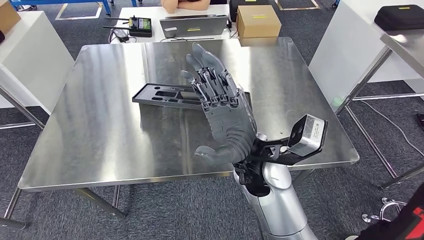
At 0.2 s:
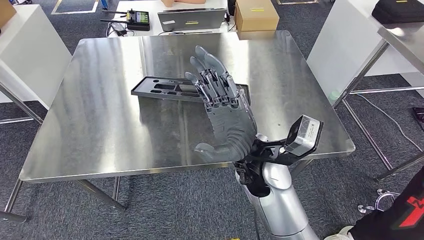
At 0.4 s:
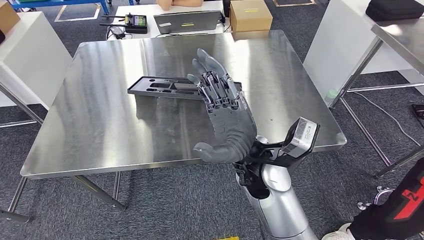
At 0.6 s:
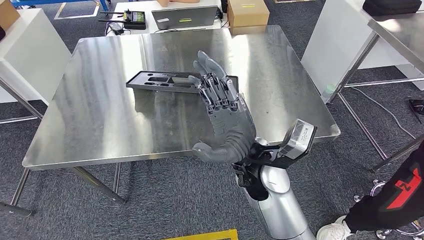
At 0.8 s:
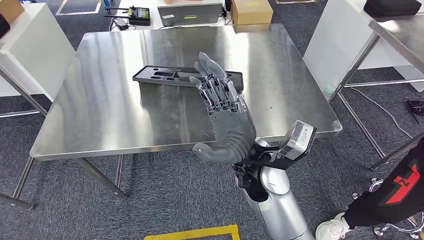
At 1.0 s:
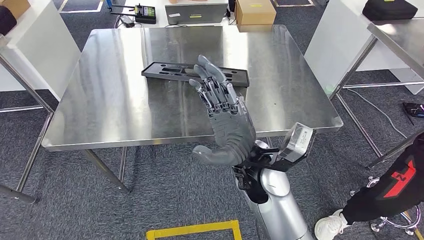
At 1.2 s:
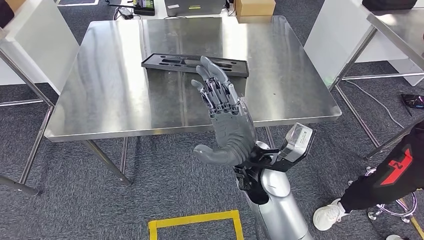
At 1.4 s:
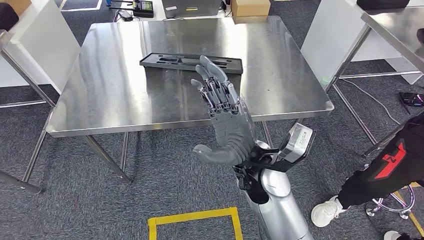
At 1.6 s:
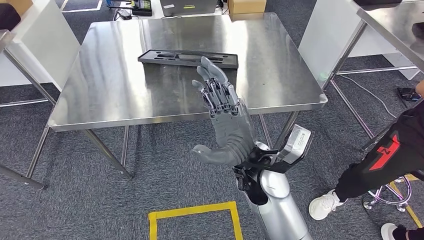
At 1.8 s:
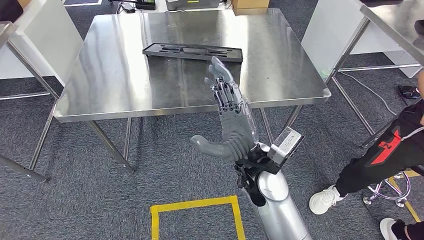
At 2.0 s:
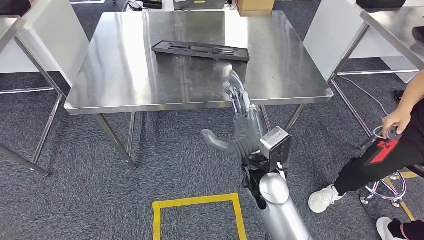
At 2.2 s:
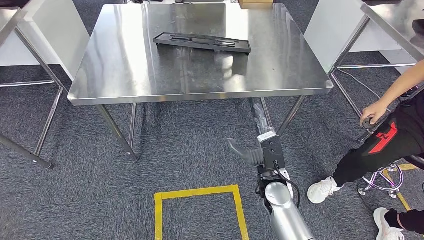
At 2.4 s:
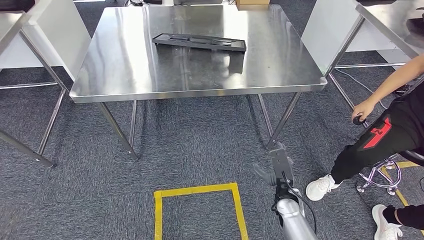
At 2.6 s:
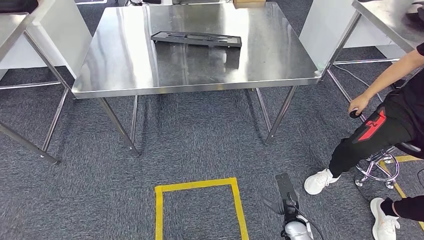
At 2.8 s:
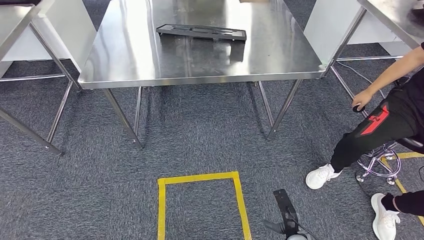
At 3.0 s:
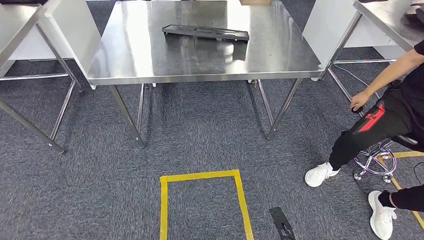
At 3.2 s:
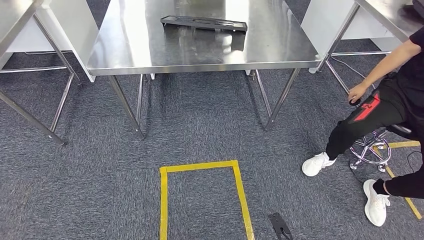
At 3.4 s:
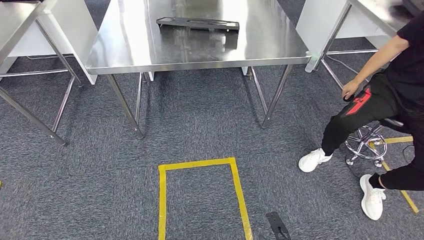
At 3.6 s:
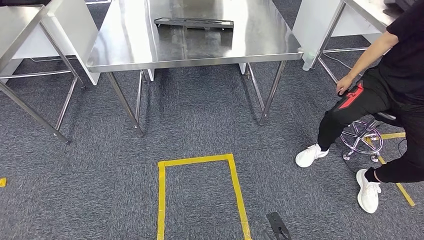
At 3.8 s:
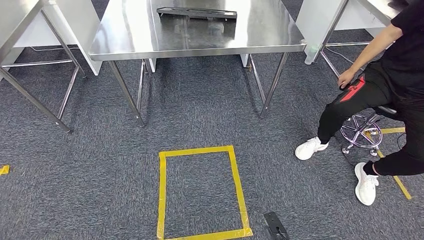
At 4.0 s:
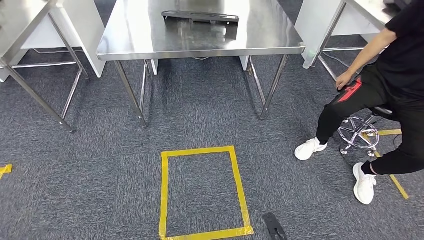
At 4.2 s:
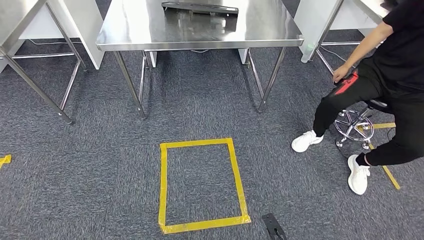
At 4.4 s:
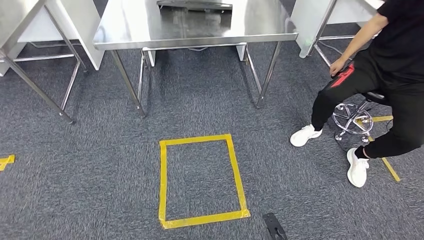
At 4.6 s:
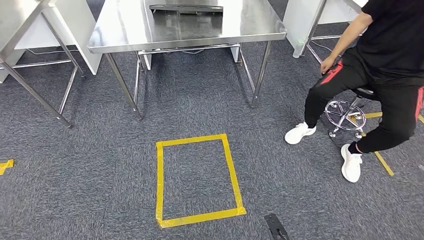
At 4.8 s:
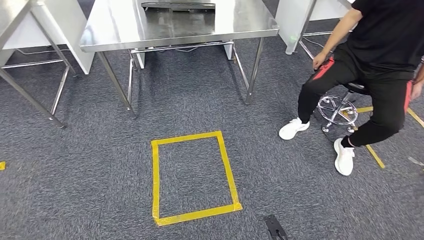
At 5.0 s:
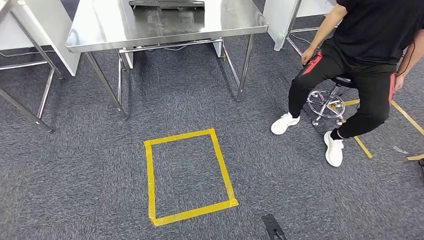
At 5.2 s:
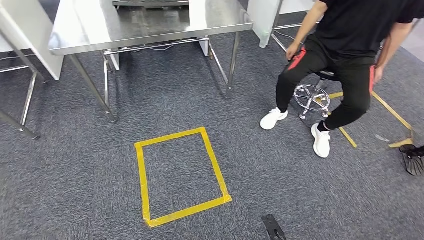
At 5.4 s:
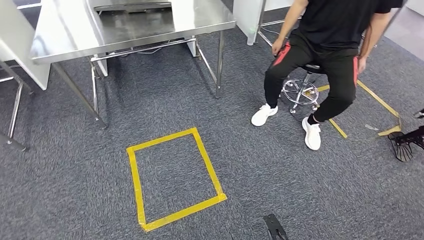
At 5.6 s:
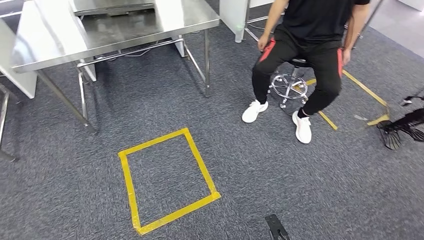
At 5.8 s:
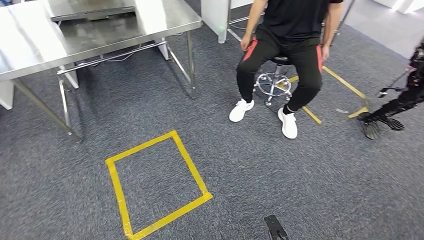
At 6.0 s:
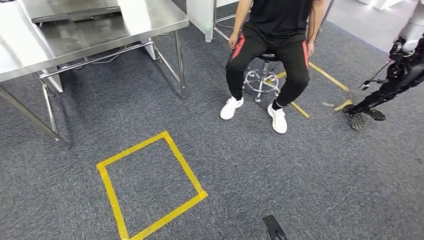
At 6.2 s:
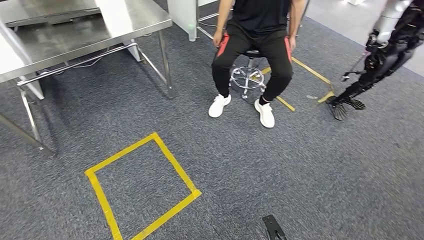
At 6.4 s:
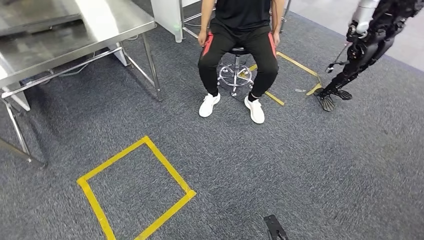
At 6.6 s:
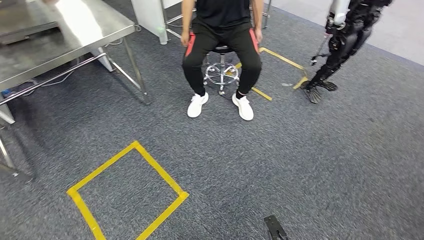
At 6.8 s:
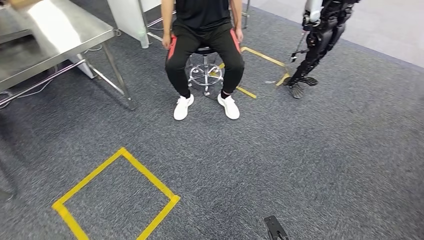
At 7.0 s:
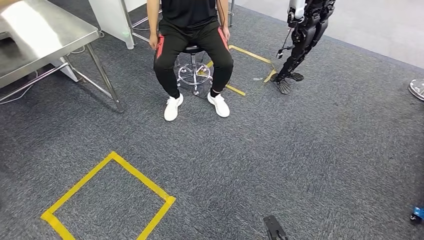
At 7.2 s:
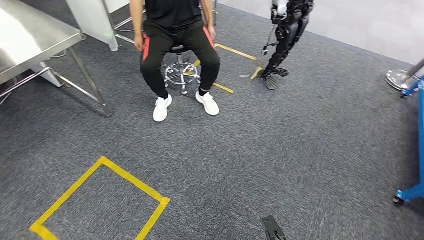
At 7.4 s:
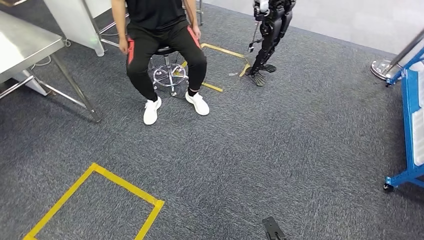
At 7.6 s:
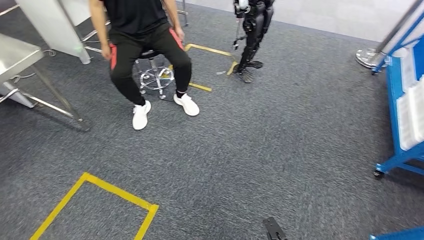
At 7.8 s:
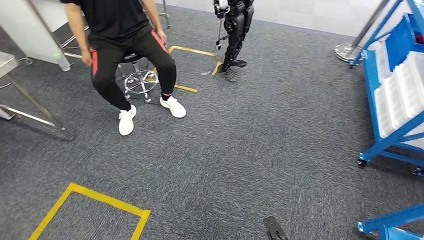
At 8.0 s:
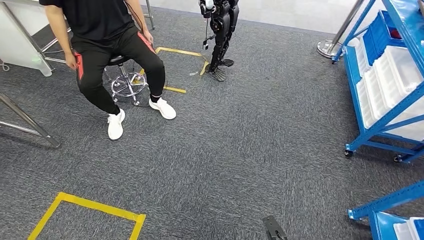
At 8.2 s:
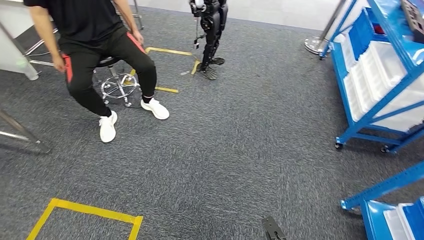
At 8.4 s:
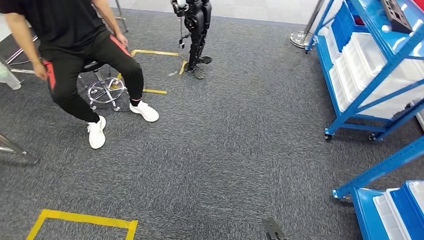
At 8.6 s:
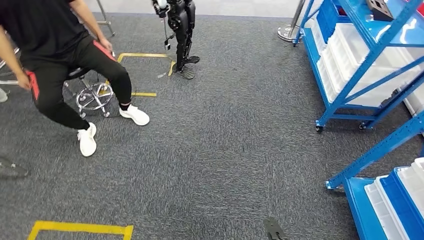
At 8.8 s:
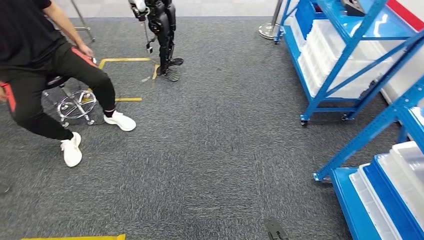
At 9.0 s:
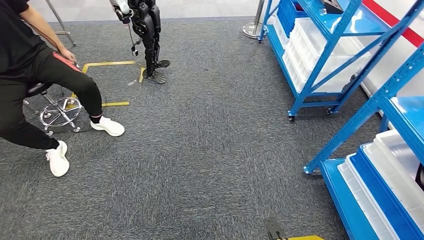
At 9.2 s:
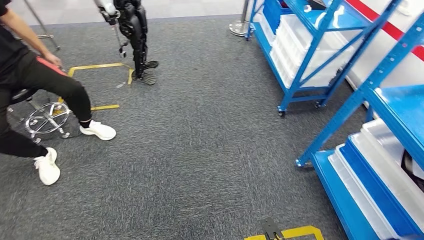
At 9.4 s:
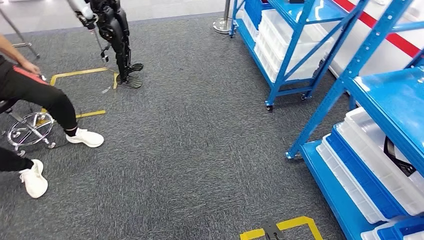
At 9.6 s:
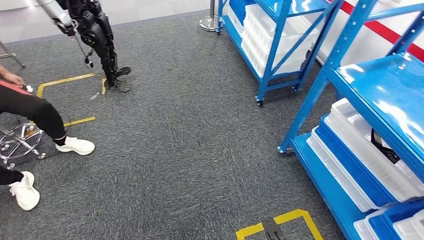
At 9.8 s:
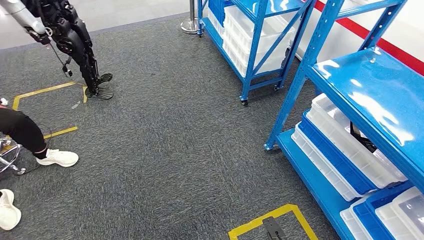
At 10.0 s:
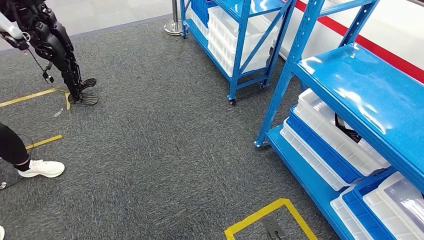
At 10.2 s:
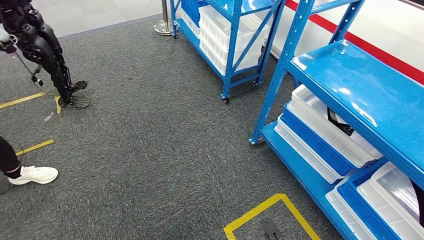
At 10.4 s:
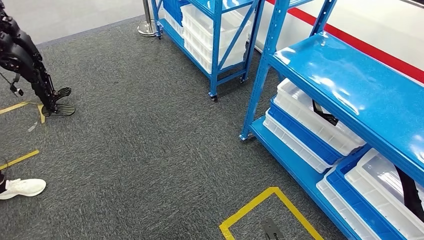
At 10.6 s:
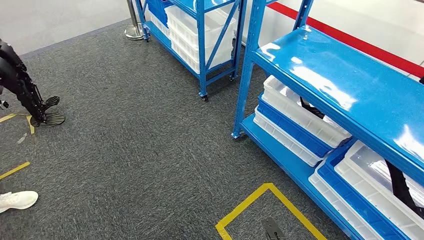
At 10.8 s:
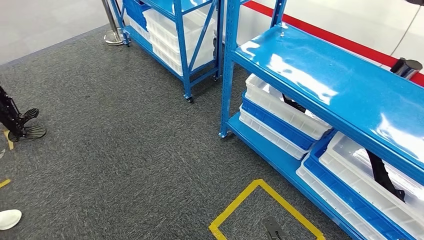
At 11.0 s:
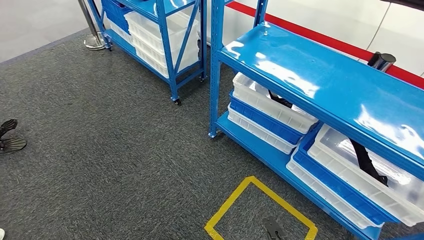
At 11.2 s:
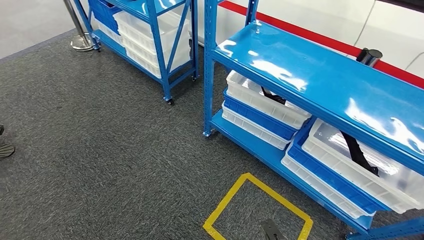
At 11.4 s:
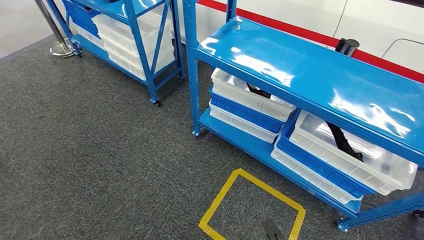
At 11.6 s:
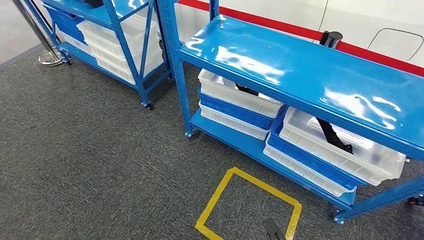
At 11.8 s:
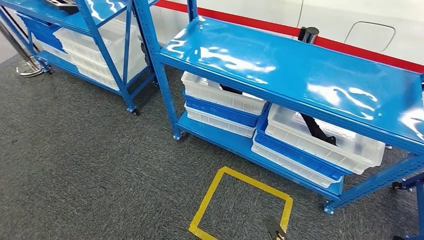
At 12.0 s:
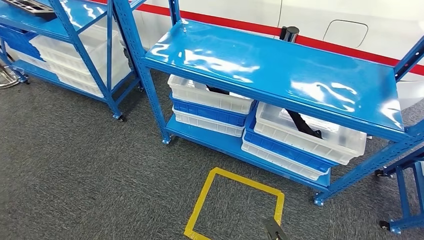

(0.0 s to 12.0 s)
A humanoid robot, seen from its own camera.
Step, 0.0 s - 5.0 s: Insert the large material into the corresponding slot on the workbench.

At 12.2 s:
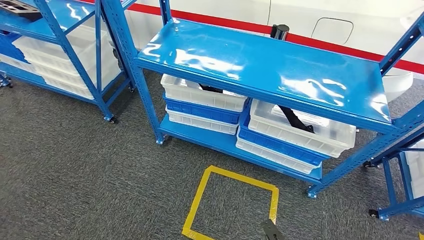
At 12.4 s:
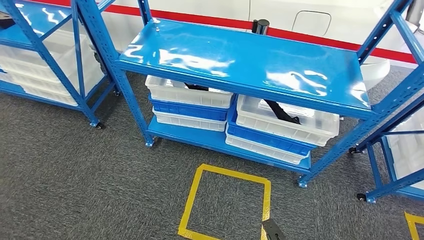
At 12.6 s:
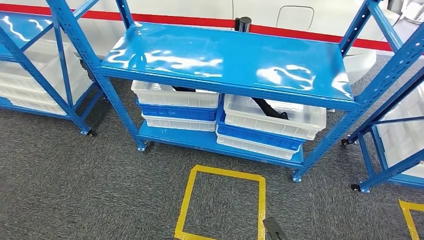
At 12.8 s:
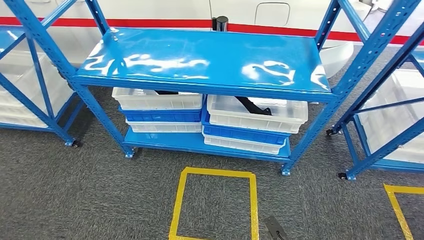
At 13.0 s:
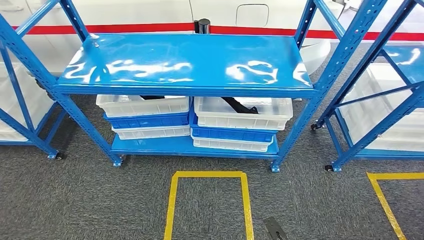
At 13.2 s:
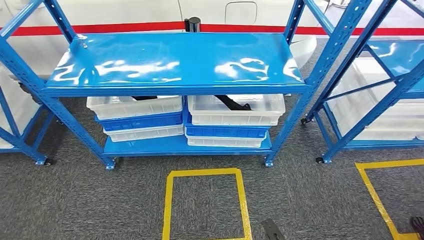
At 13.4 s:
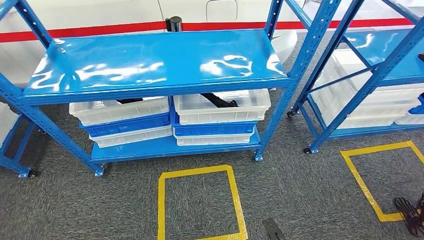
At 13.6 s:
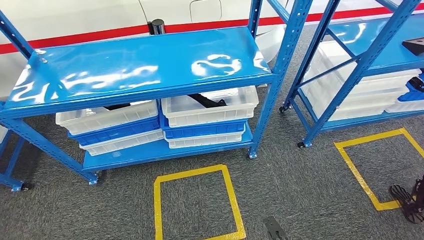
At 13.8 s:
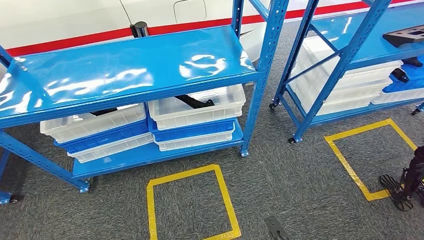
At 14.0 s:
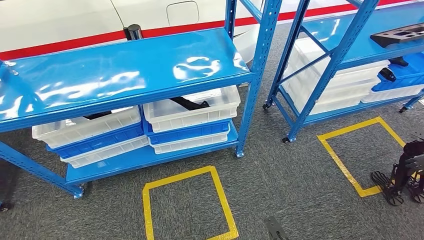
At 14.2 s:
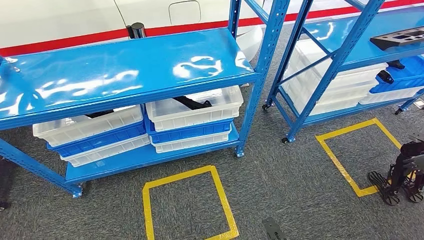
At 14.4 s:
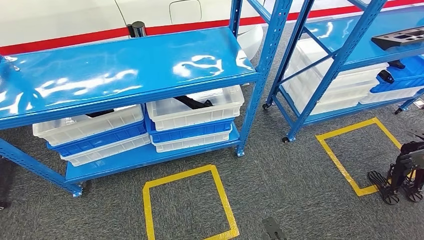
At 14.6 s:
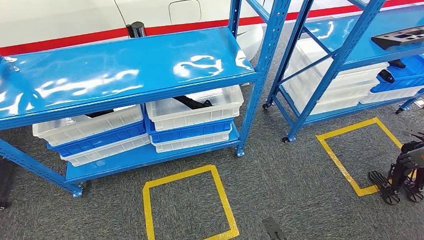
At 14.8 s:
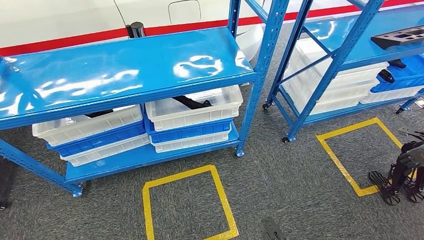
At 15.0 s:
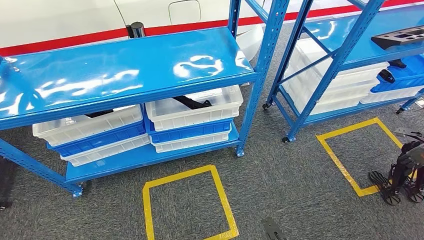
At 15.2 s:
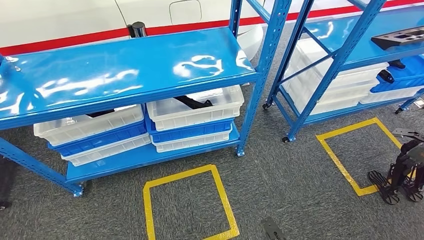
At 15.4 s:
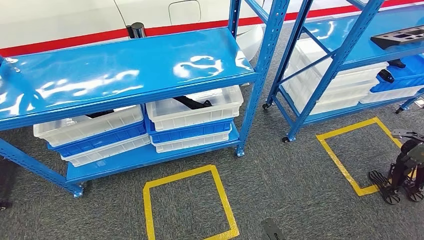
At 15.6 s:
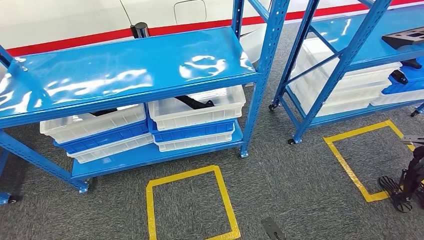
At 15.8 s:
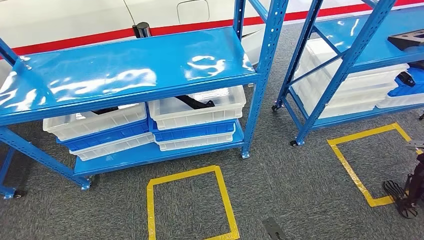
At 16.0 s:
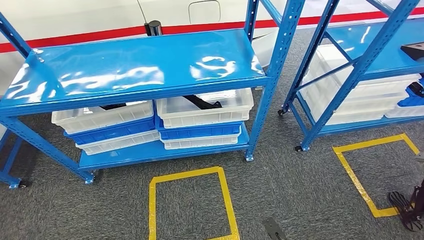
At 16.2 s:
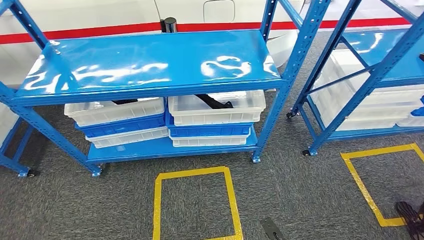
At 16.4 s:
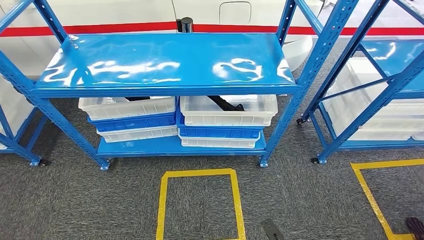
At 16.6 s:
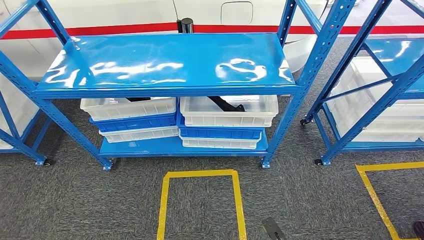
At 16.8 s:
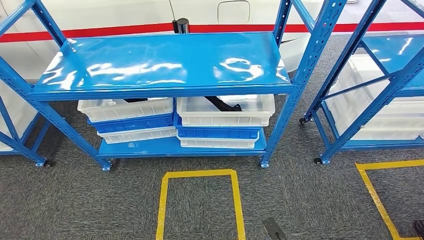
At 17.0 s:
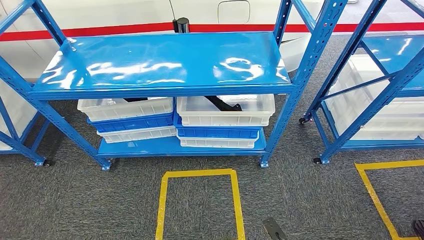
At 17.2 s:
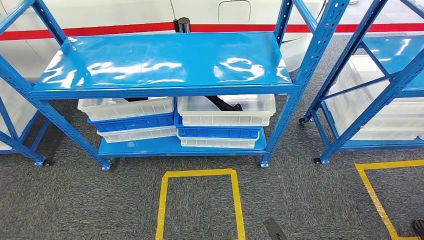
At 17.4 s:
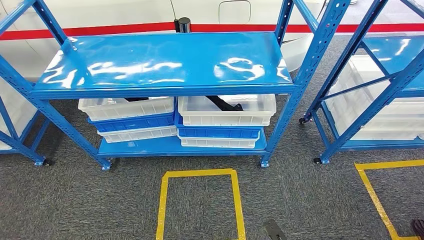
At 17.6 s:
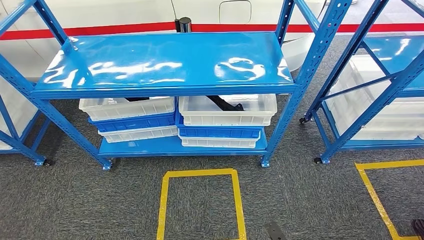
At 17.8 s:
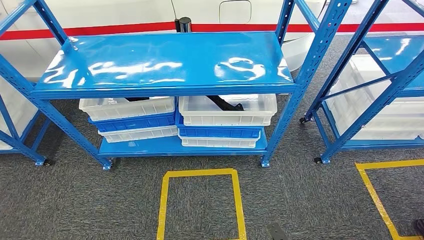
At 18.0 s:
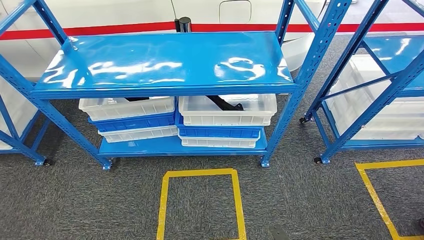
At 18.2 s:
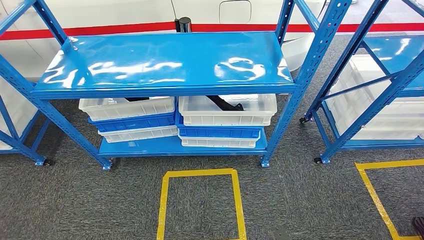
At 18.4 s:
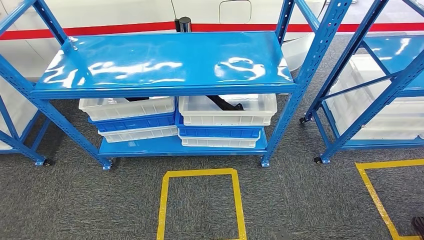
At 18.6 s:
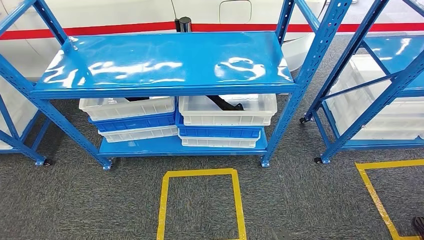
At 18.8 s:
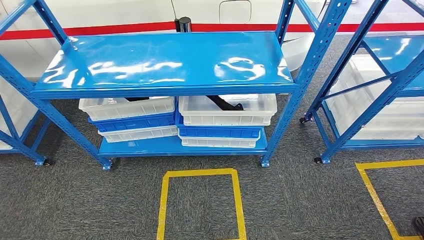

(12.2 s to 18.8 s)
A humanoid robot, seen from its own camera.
Step, 12.2 s - 18.8 s: Move to the initial position of the shelf.
